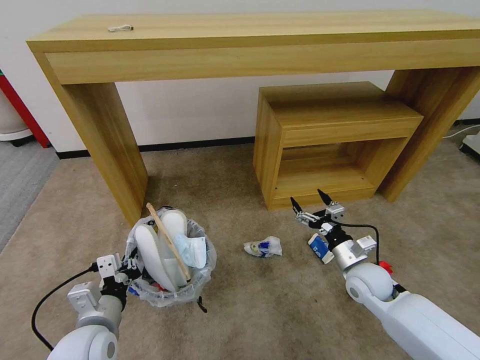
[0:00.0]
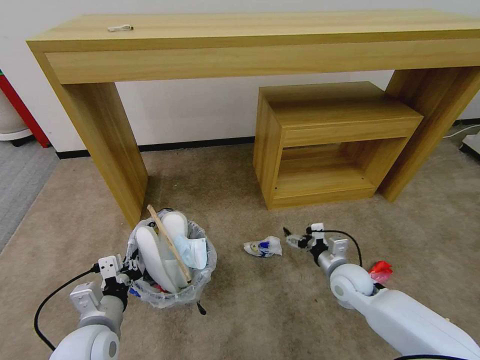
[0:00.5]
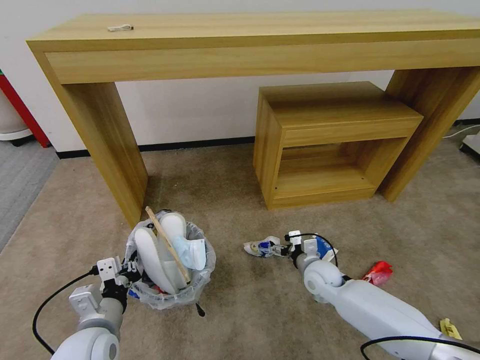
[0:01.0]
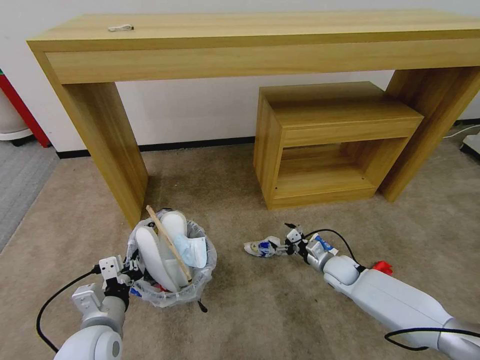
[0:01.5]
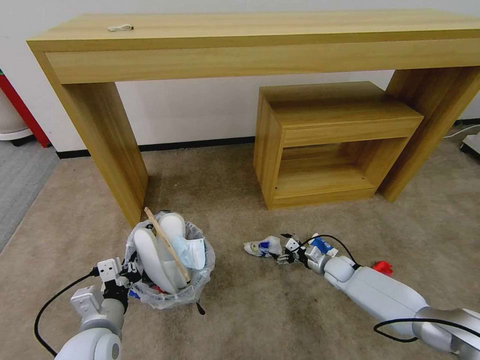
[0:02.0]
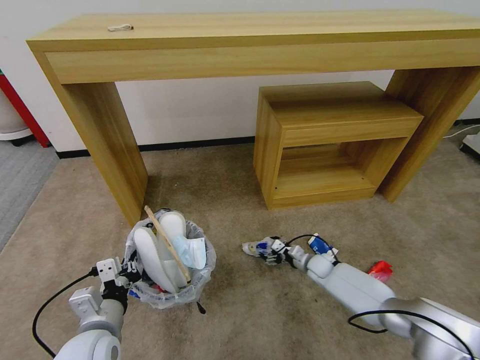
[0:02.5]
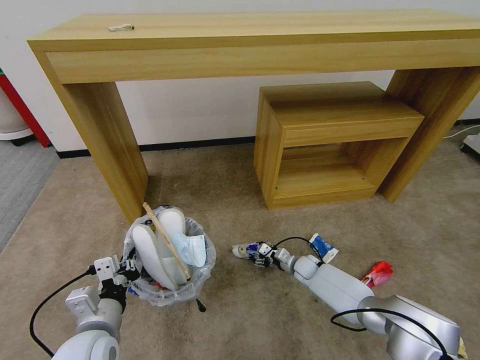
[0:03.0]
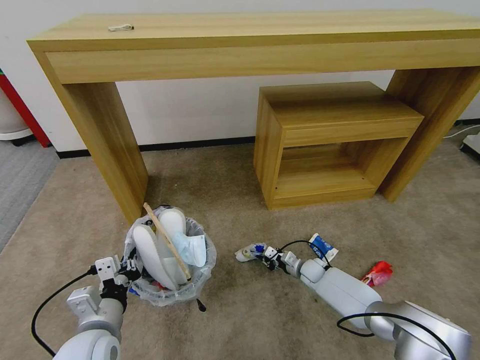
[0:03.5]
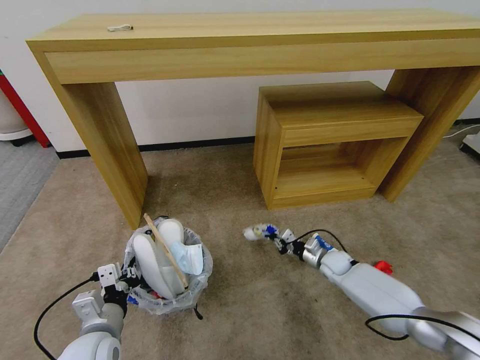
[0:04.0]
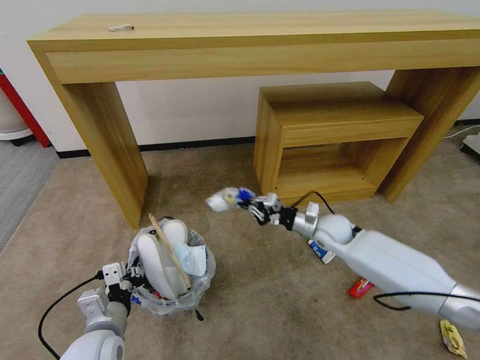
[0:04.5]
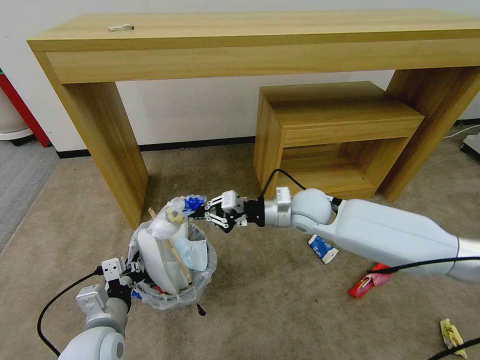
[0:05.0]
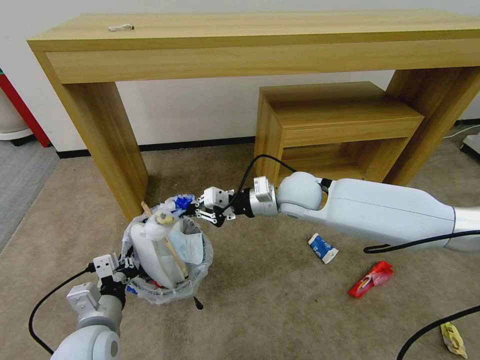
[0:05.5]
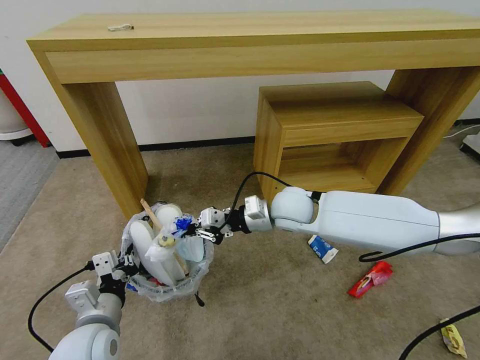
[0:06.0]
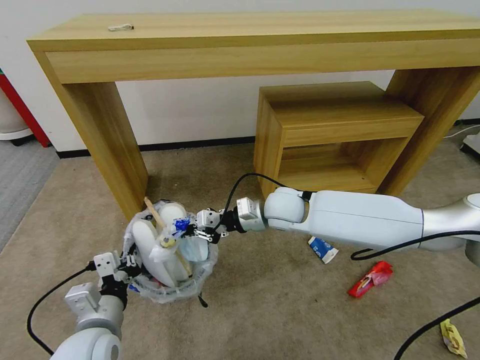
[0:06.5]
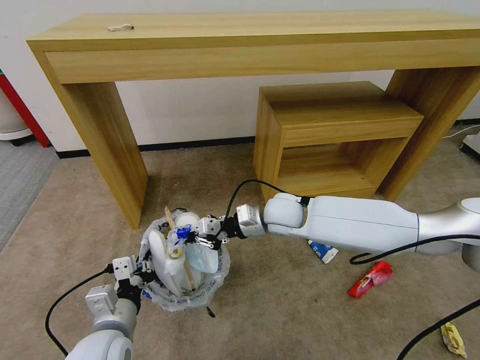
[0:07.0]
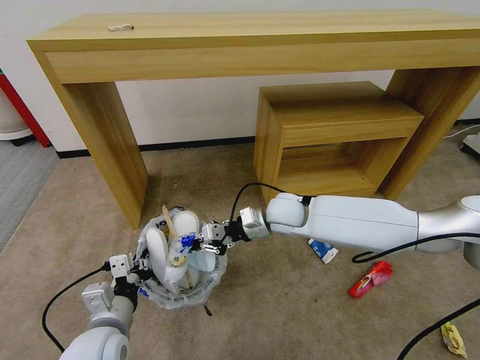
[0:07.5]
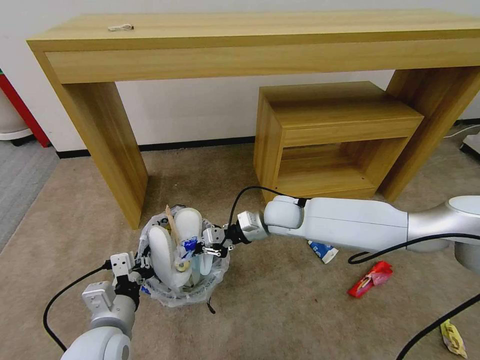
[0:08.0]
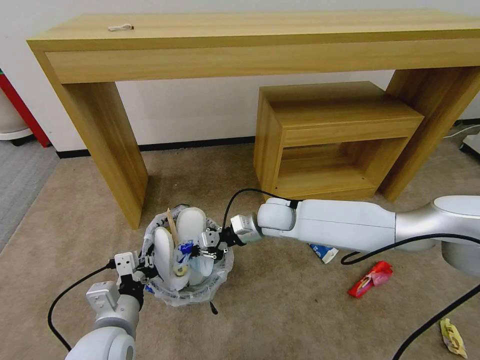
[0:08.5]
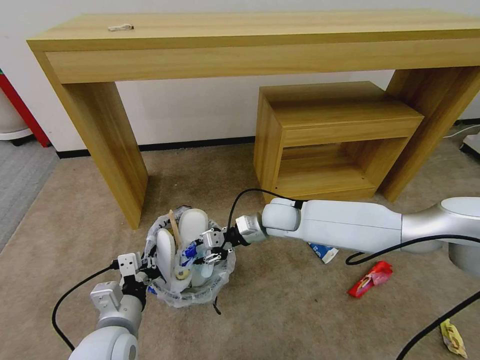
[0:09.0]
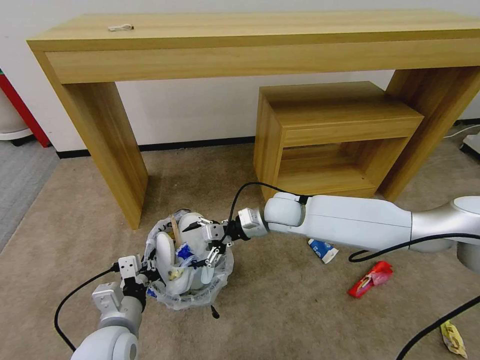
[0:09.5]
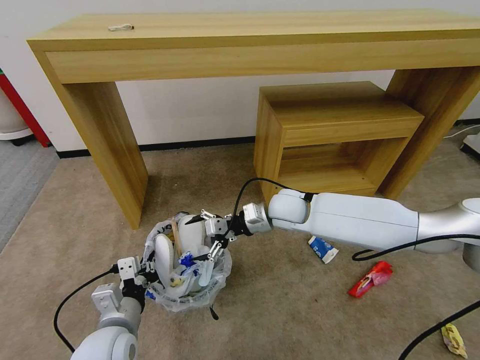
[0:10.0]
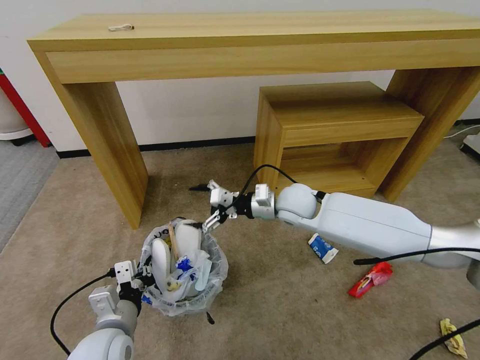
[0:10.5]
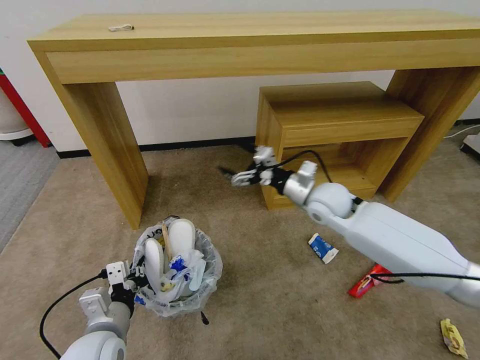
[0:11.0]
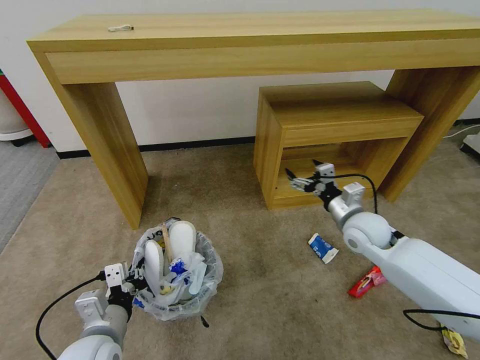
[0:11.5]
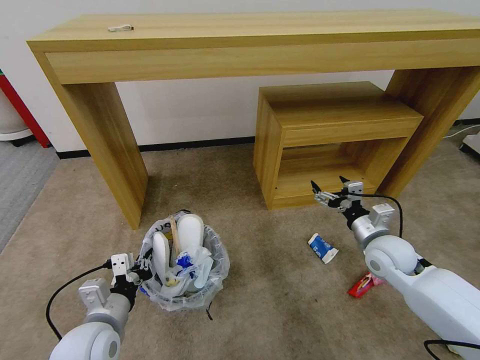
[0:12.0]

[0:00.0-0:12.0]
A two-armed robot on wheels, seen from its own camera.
Task of the whole recording: Pick up the trash bin and place the garbage on the floor into it.
0:00.0 to 0:02.0: The right gripper moves downward and forward, some 15 cm.
0:02.0 to 0:04.0: The right gripper moves approximately 10 cm to the left and comes back, and closes up.
0:04.0 to 0:06.0: The right gripper moves upward and to the left, some 35 cm.
0:06.0 to 0:08.0: The right gripper is displaced downward by about 5 cm.
0:08.0 to 0:10.0: The right gripper opens its fingers.
0:10.0 to 0:12.0: The right gripper goes roughly 25 cm to the right and backward.

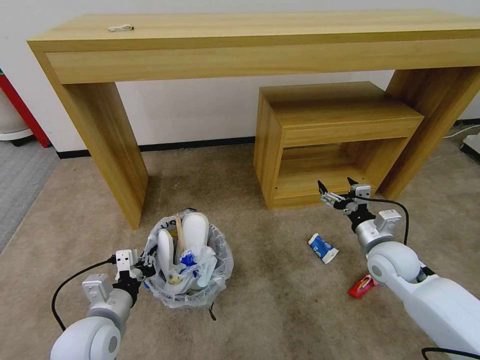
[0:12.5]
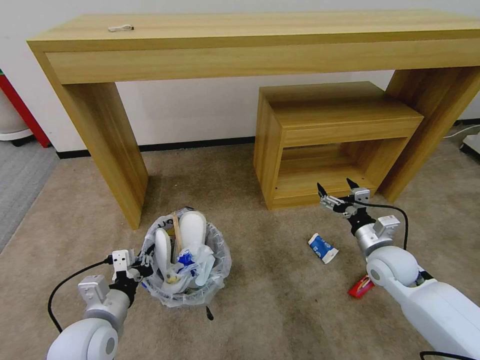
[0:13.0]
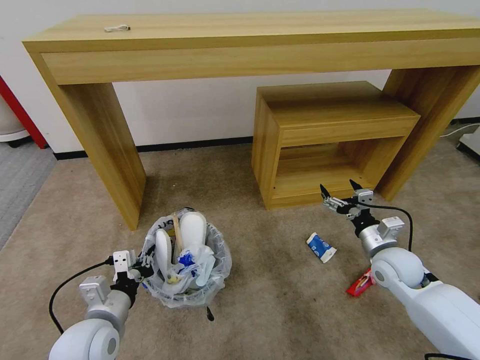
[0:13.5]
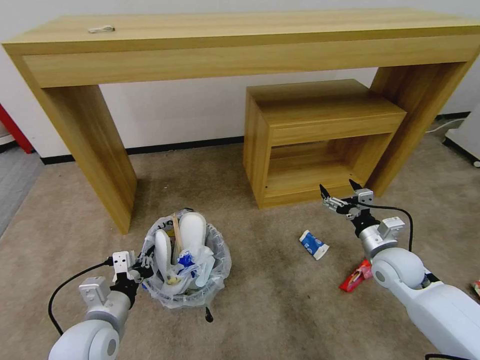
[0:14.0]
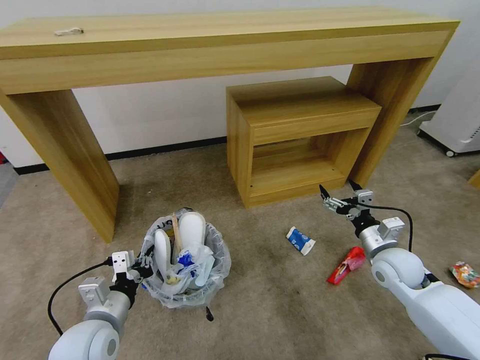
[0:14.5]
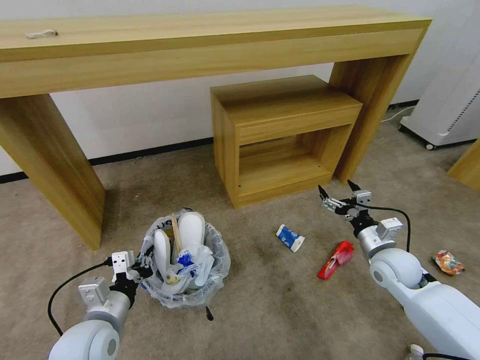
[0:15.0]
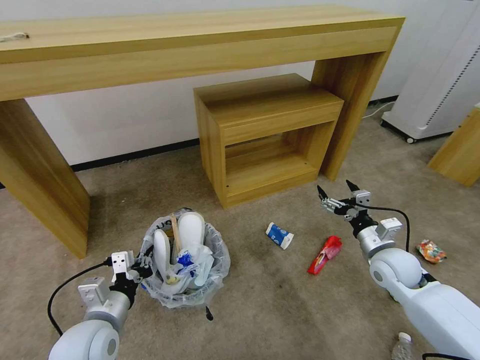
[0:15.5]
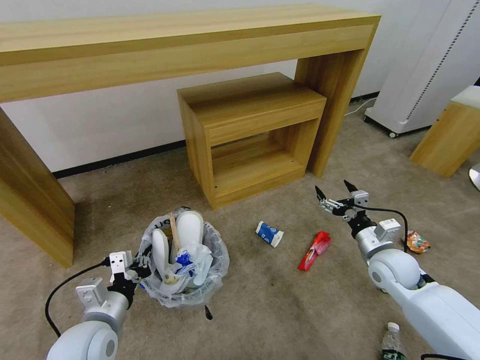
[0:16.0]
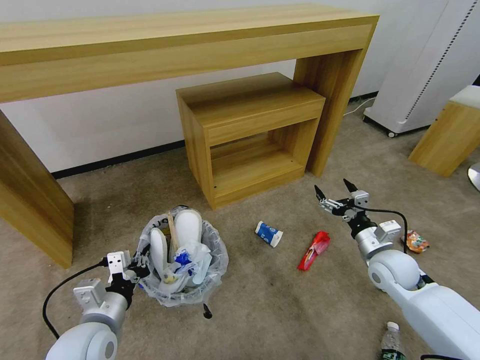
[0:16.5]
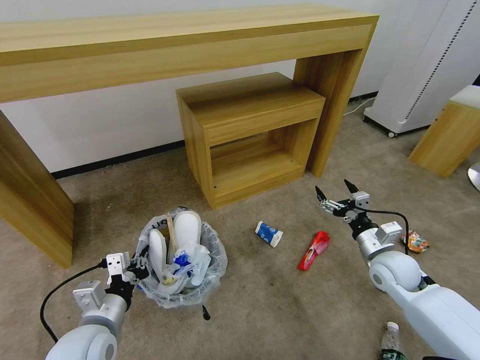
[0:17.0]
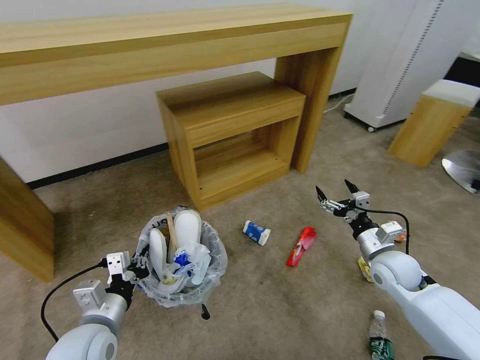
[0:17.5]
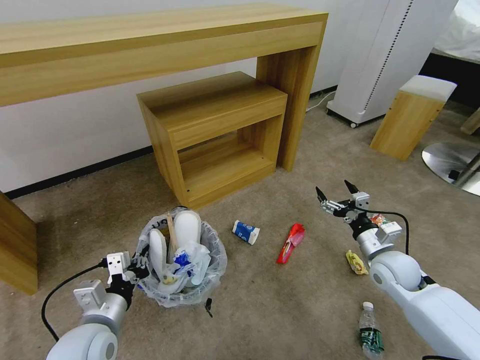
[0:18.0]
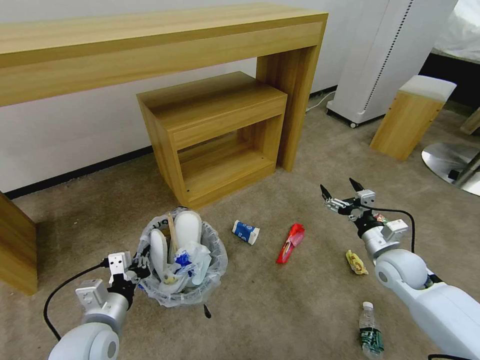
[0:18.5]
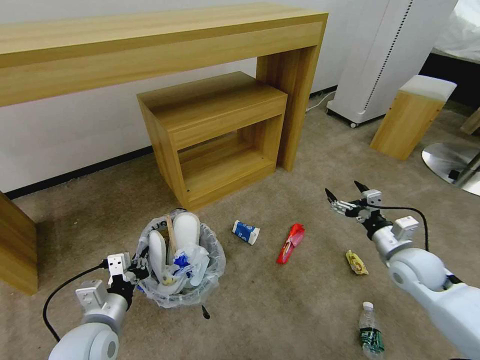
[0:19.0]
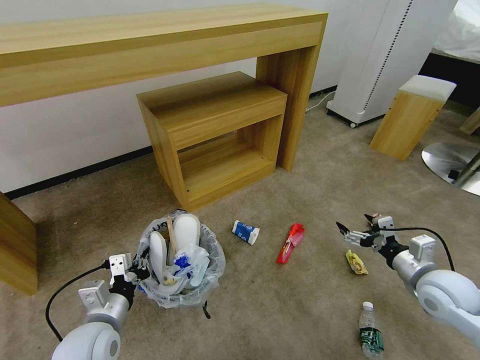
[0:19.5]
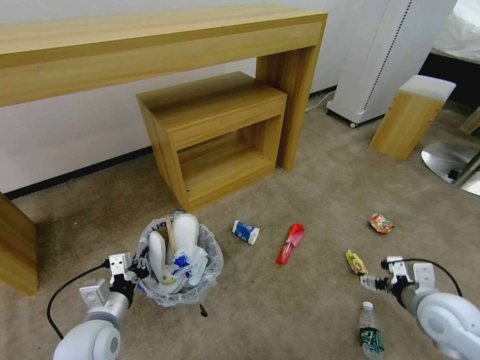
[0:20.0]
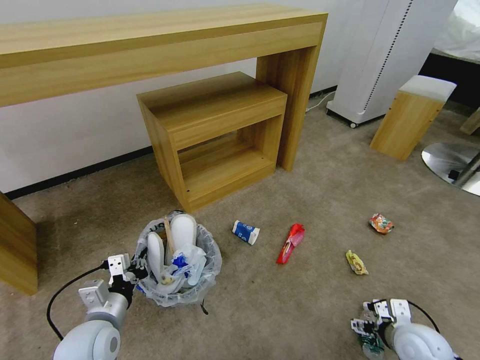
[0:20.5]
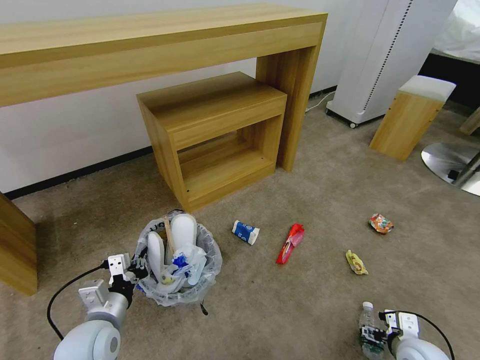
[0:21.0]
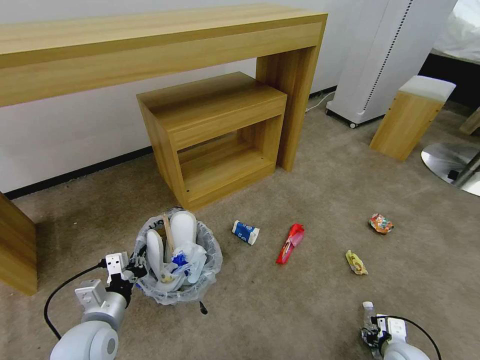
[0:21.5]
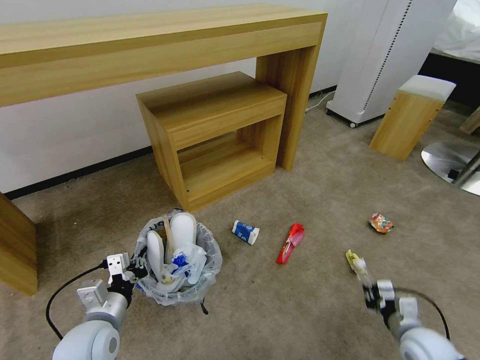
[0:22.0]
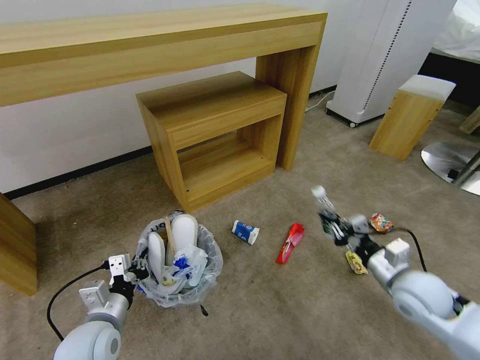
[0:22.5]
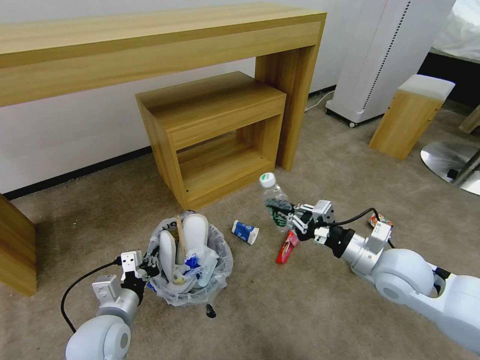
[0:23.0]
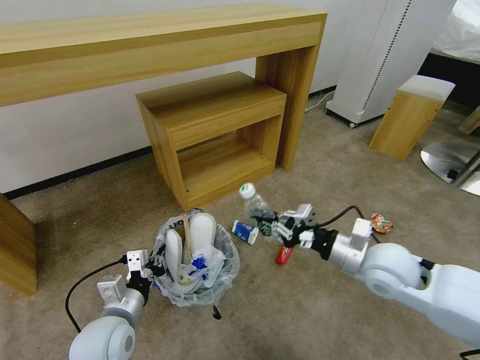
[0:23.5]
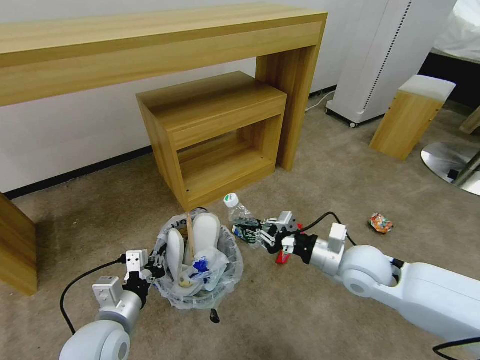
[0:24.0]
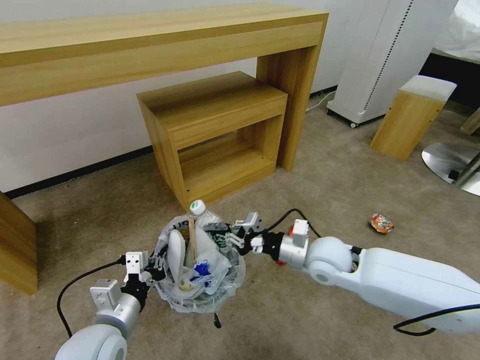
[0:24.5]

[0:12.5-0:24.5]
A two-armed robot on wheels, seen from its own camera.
Task of the whole recording: Pick up the trash bin and place the garbage on the floor into it.
0:18.5 to 0:20.5: The right gripper goes about 15 cm backward and downward.
0:20.5 to 0:22.5: The right gripper heads upward and forward, covering some 10 cm, and closes up.
0:22.5 to 0:24.5: The right gripper is displaced to the left and forward by roughly 20 cm; the left gripper ends up about 5 cm from where it was.

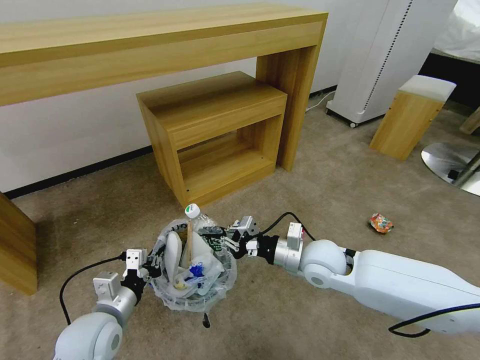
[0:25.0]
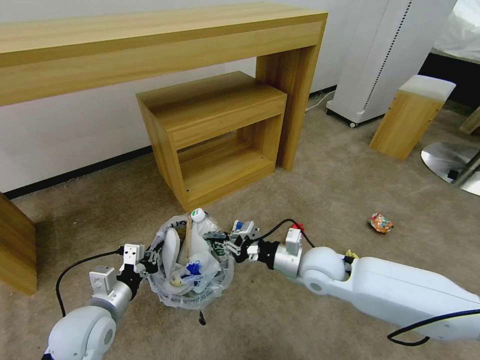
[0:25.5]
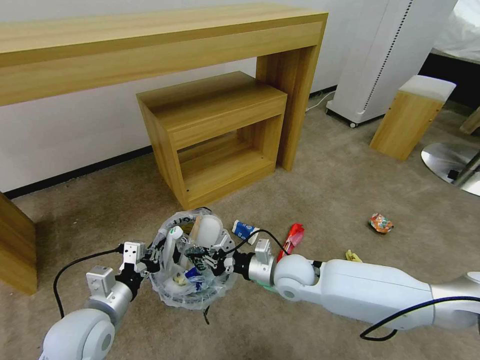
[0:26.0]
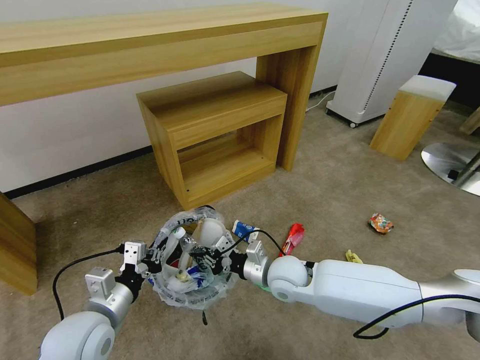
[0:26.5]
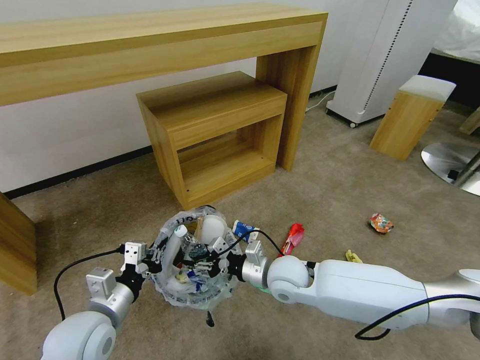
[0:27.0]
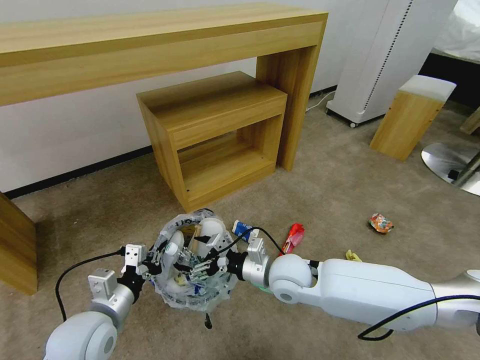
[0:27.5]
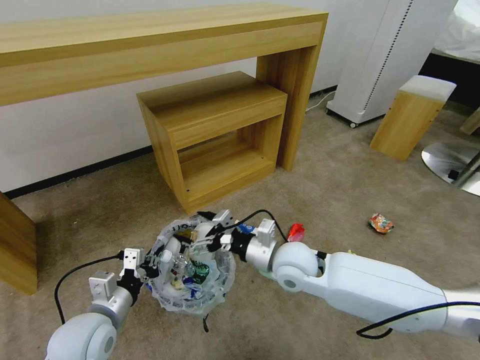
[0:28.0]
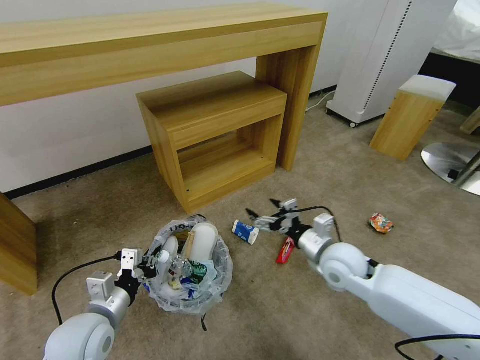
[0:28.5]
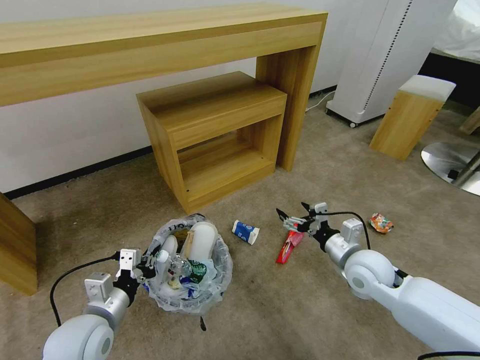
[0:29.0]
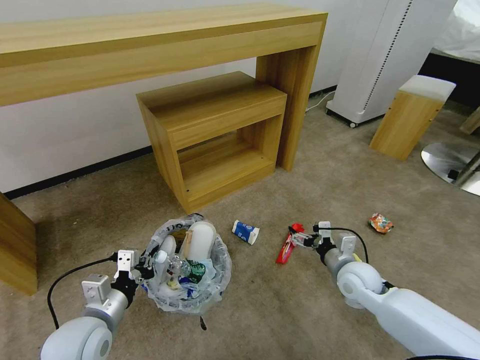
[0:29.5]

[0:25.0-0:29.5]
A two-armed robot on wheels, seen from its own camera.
Task of the whole recording: Pick up the trash bin and place the garbage on the floor into it.
0:25.0 to 0:27.0: The right gripper heads to the left, covering about 5 cm, and opens.
0:27.0 to 0:29.5: The right gripper is displaced to the right by approximately 20 cm, and opens up.
